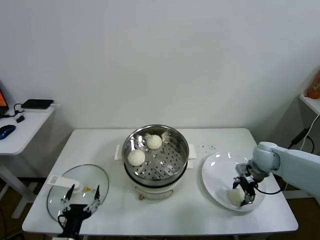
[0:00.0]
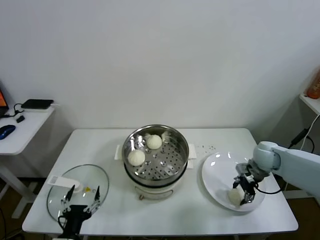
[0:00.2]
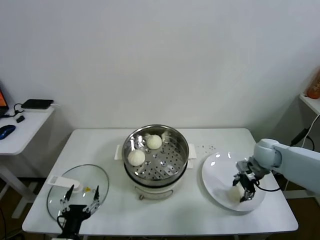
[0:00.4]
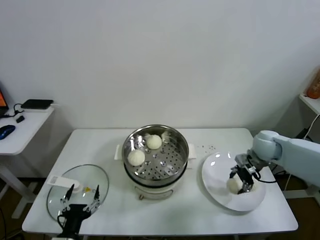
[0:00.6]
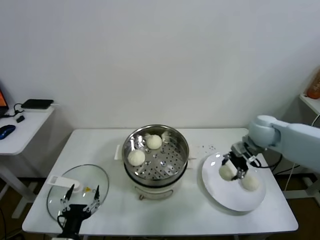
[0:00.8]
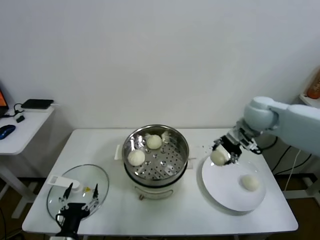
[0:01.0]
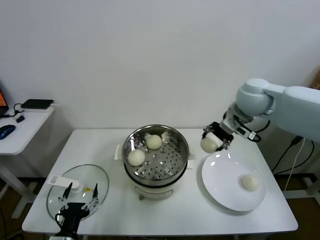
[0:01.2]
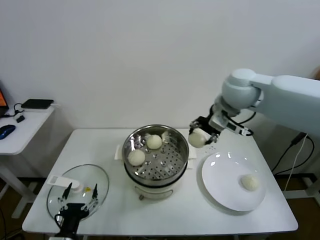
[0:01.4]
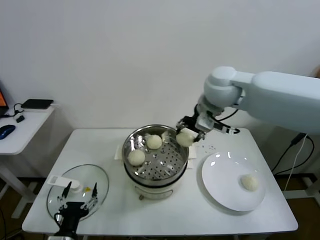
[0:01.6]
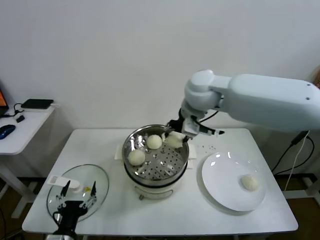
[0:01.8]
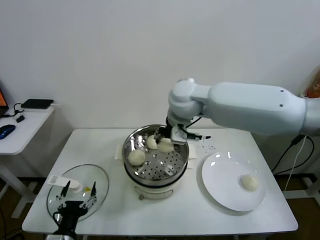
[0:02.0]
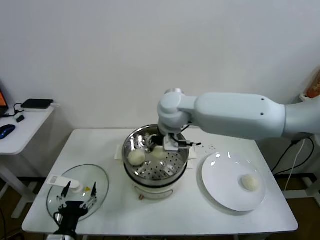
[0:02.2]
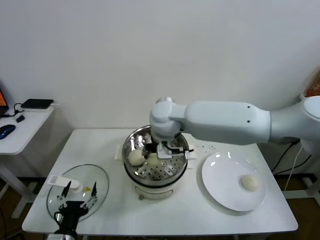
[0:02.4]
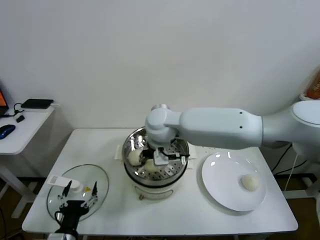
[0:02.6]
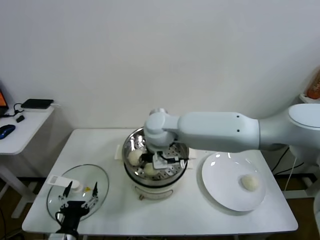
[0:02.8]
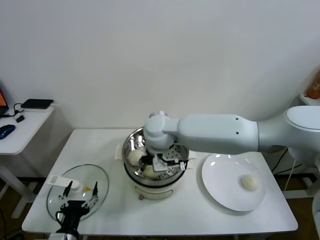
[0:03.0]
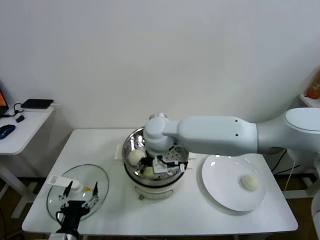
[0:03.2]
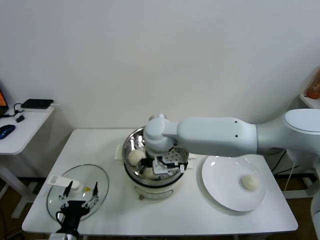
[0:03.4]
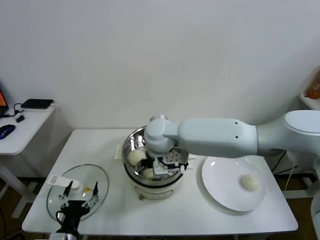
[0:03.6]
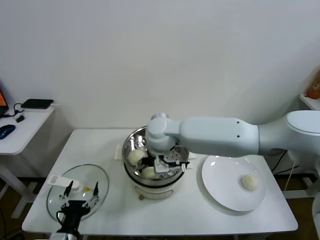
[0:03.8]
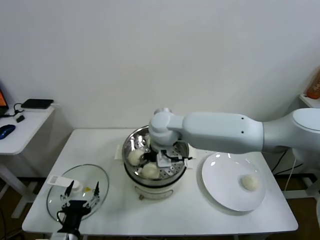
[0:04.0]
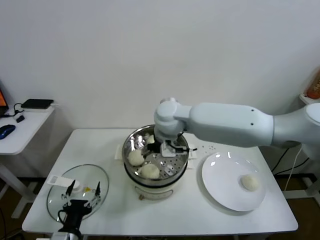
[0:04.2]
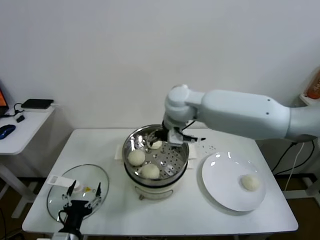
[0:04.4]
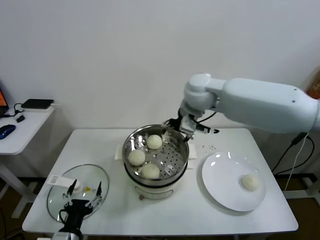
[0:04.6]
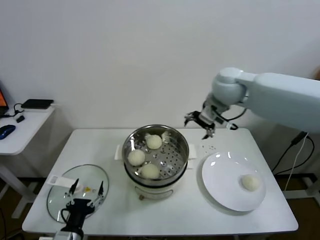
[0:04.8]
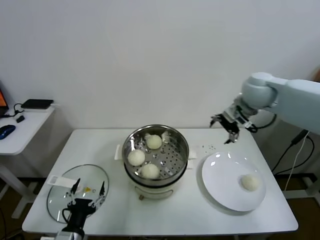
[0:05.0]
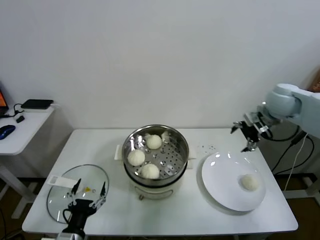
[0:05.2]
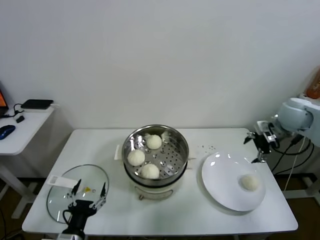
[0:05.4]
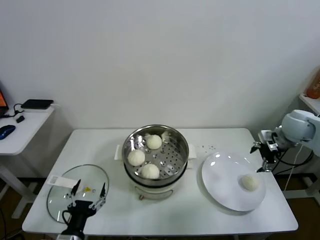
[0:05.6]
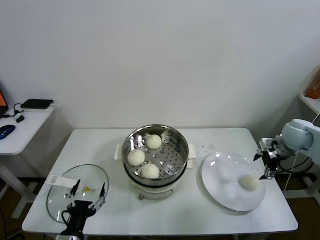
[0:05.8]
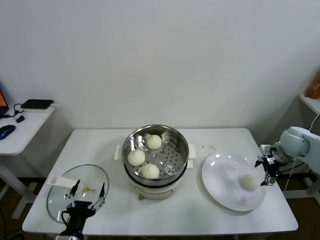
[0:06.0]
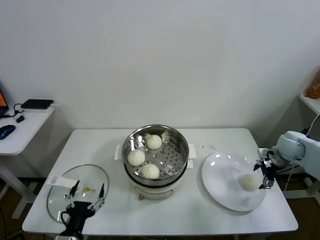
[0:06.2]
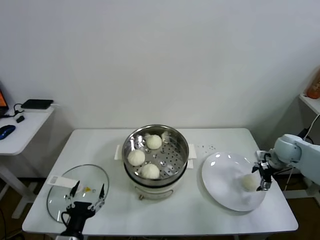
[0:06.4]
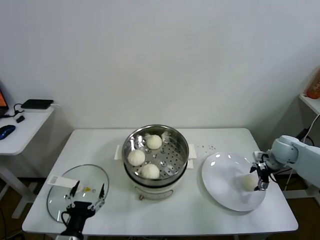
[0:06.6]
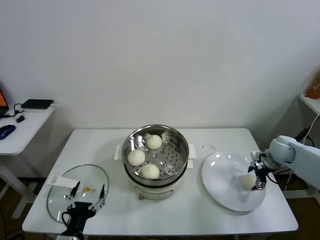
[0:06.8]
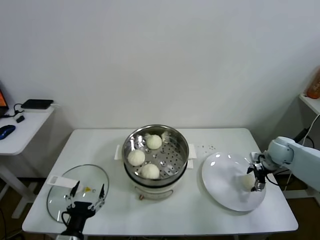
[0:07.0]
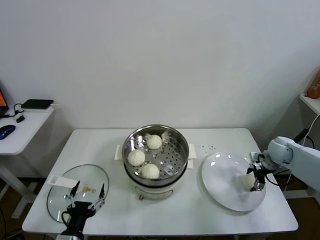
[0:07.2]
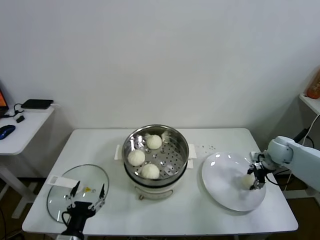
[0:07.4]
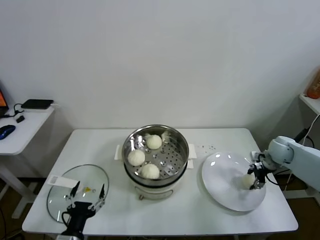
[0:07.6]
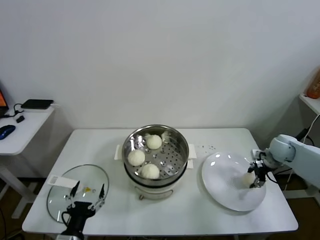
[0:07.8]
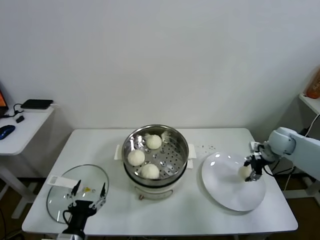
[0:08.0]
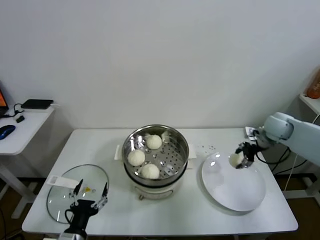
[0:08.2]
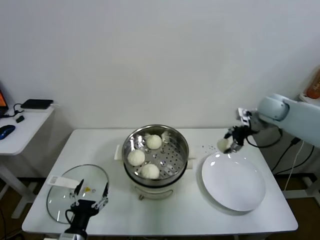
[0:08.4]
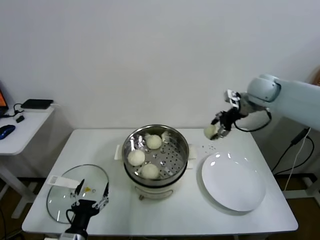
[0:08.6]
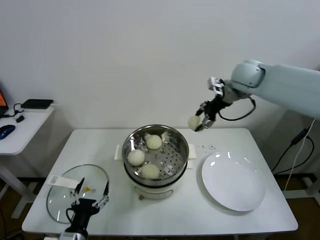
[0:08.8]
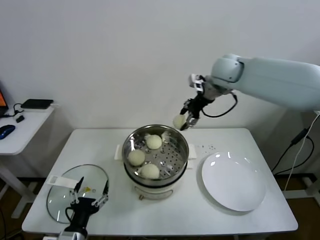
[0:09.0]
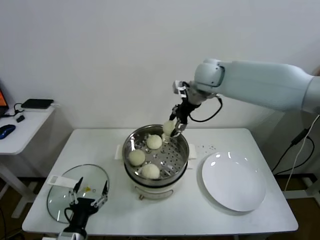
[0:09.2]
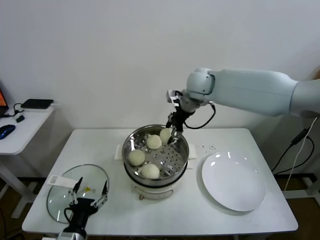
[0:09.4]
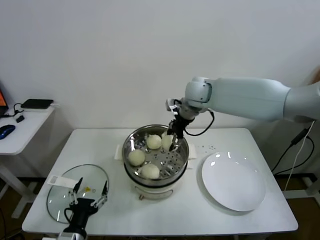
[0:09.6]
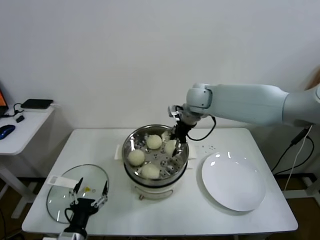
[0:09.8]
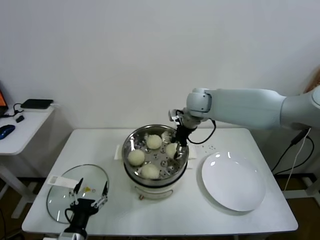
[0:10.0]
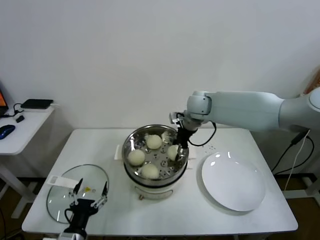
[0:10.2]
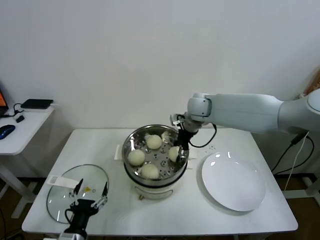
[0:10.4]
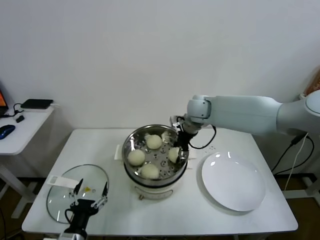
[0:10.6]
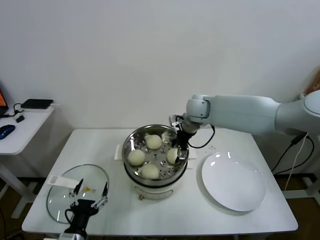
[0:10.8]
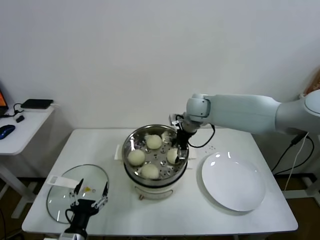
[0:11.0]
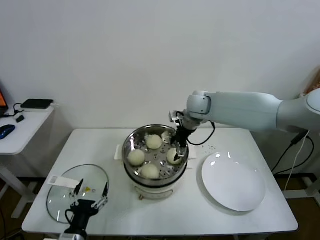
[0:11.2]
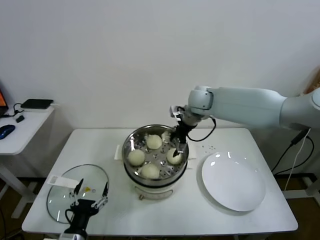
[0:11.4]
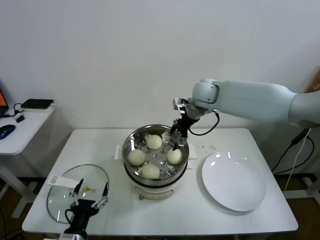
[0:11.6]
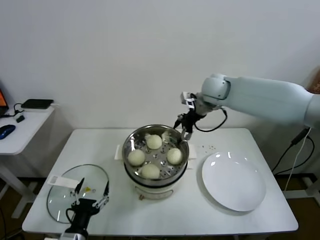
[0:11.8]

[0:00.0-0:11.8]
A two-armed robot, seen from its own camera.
Task of the whole recording: take steamed baozi put them in steamer.
Step, 0:00.4 to 0:03.6: Place the baozi on the steamer with right gripper.
Step, 0:03.8 to 0:07.4: Grasp the baozi in the plate with right gripper.
Step, 0:07.6 to 0:11.0: Place the baozi on the steamer with right gripper.
0:00.0 to 0:01.4: The right gripper goes some 35 cm upward and to the left.
0:01.4 to 0:03.0: The right gripper heads to the left and downward, covering some 25 cm.
0:03.0 to 0:04.4: The right gripper is displaced upward and to the right by approximately 10 cm, and opens.
0:04.4 to 0:06.0: The right gripper shifts about 40 cm to the right.
0:06.0 to 0:07.4: The right gripper goes some 5 cm downward, and closes up.
0:07.4 to 0:08.8: The right gripper shifts about 30 cm upward and to the left.
0:08.8 to 0:10.4: The right gripper heads to the left and downward, covering some 20 cm.
0:10.4 to 0:11.8: The right gripper is displaced upward by roughly 5 cm, and opens its fingers.

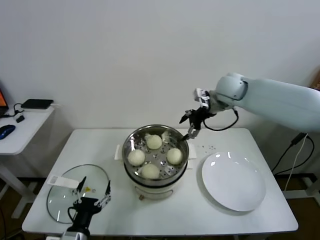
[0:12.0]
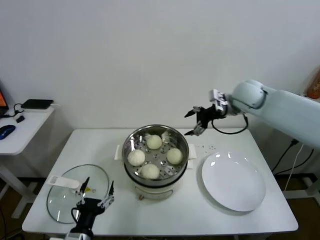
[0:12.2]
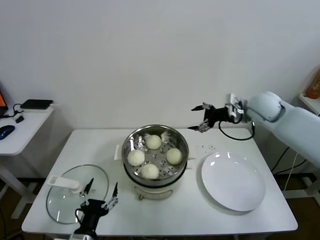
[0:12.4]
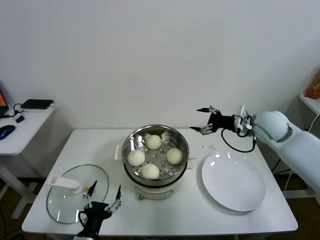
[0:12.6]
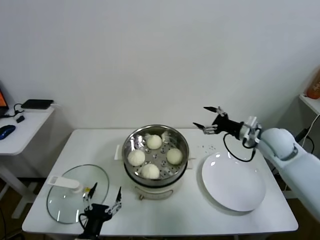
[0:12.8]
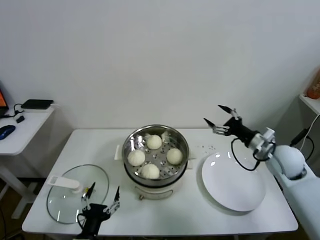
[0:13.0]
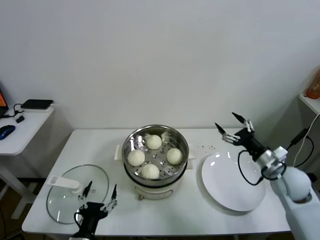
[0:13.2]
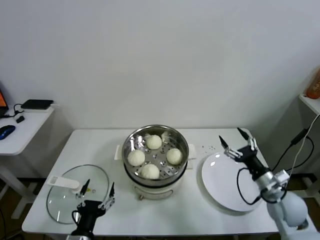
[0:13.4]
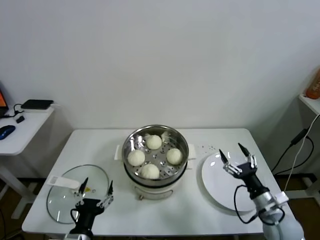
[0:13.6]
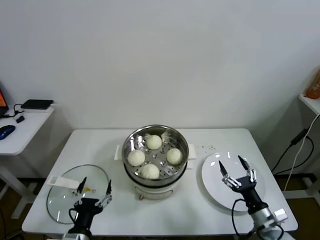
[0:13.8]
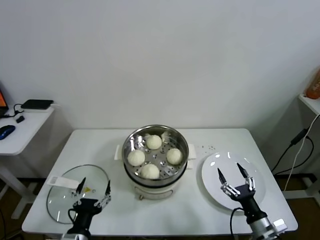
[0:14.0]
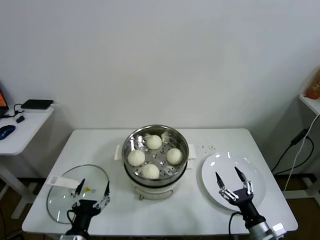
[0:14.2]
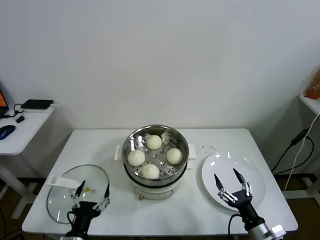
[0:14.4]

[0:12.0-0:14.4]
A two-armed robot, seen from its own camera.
Task of the whole recording: take steamed baozi put them in steamer.
0:12.0 to 0:13.2: The right gripper moves backward, downward and to the right, roughly 30 cm.
0:13.2 to 0:14.4: The right gripper goes some 25 cm backward and downward.
